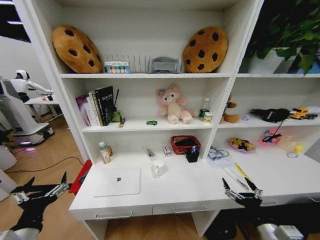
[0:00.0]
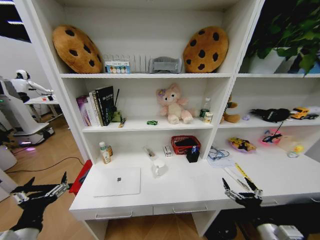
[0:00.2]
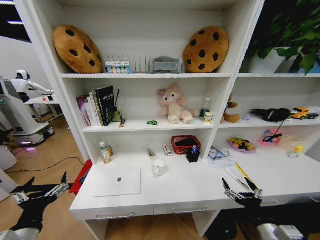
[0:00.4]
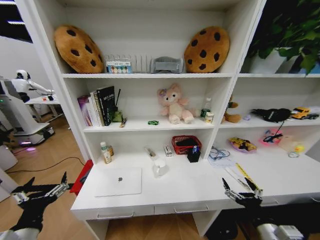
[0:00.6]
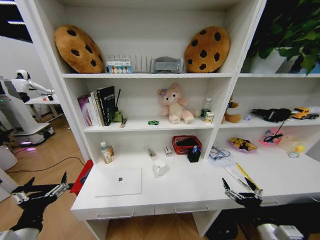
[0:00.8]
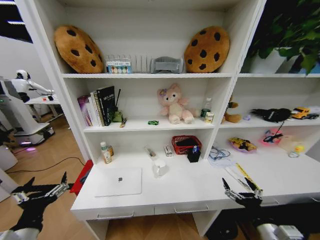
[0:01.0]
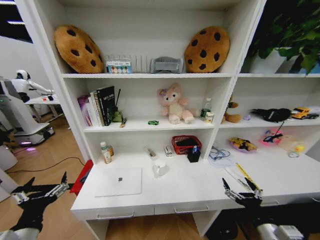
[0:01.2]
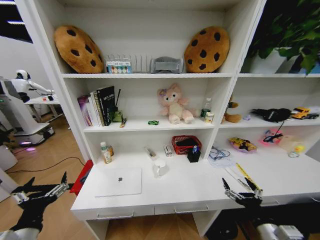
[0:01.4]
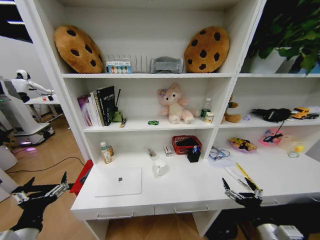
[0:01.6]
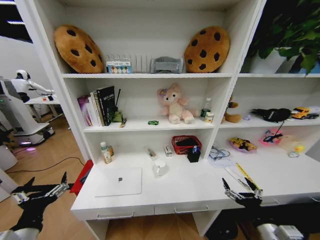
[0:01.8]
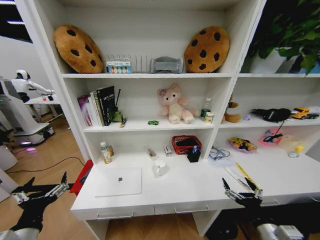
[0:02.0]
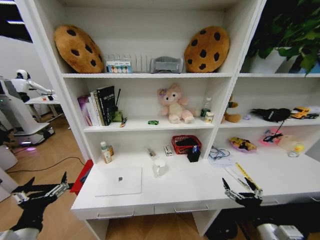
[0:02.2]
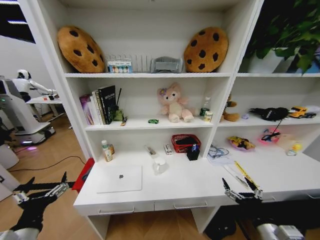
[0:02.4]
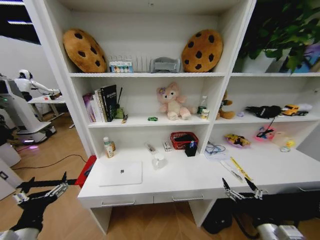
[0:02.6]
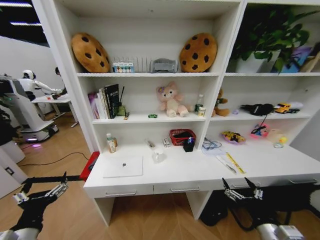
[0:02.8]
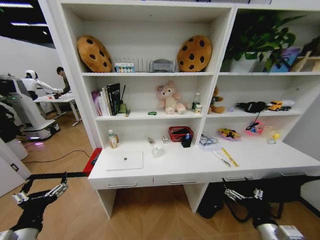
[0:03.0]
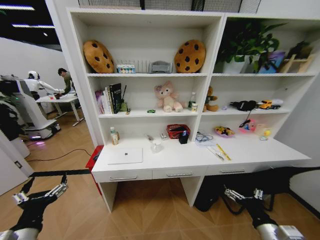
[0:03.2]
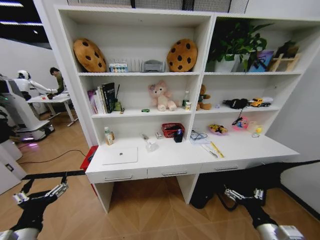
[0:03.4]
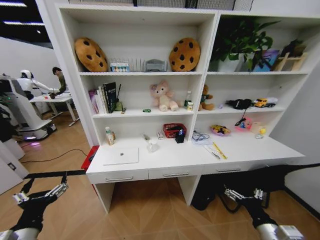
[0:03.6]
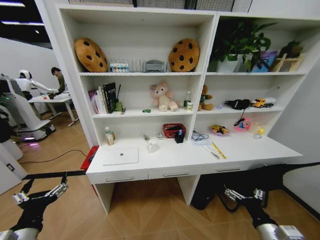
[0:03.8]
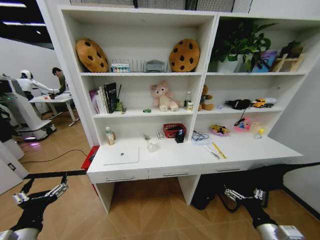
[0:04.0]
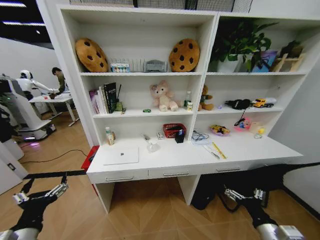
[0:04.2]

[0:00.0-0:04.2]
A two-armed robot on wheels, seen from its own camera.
Task of the whole recording: Organize the objects on the table.
0:00.0 to 0:01.4: The two grippers keep their place.
